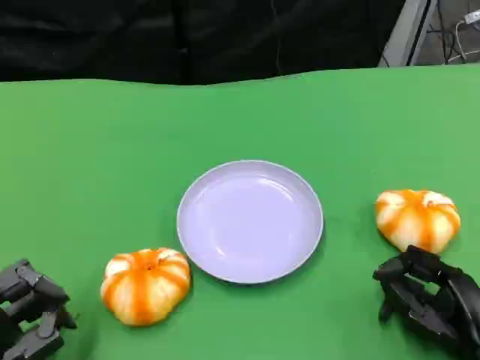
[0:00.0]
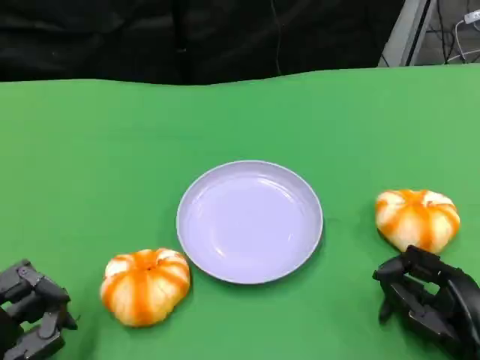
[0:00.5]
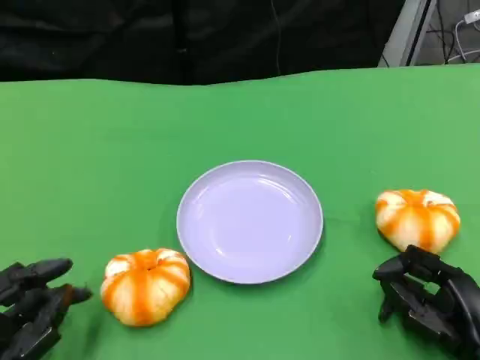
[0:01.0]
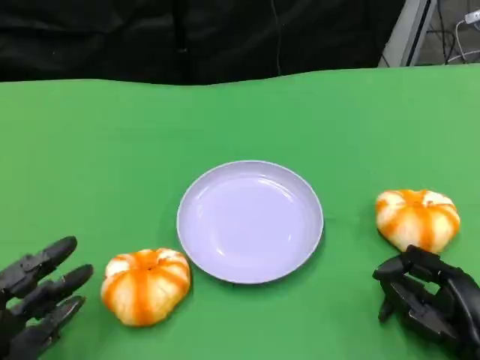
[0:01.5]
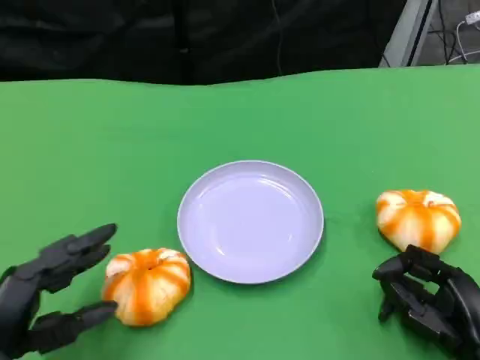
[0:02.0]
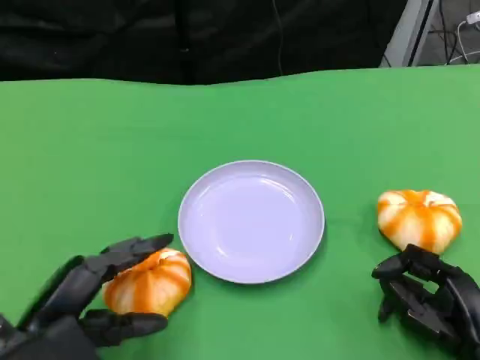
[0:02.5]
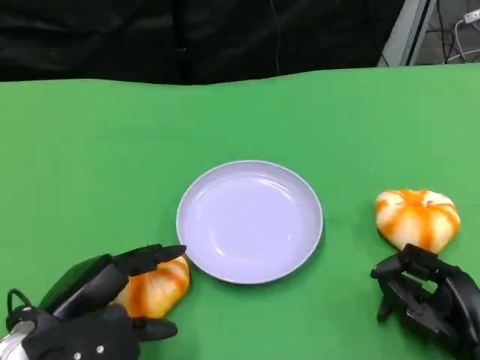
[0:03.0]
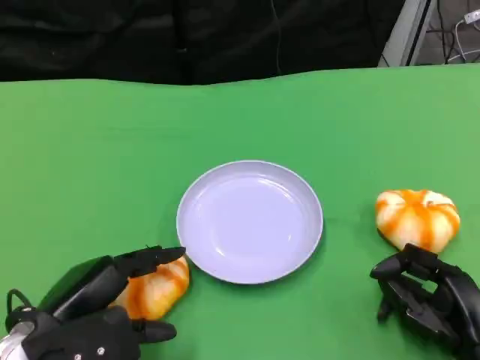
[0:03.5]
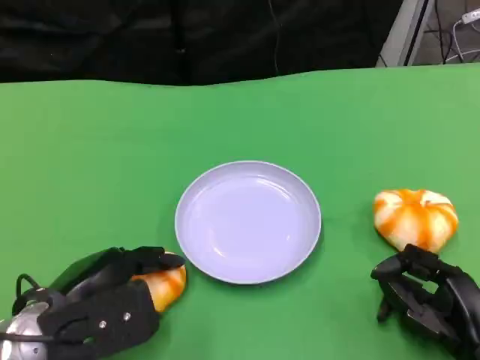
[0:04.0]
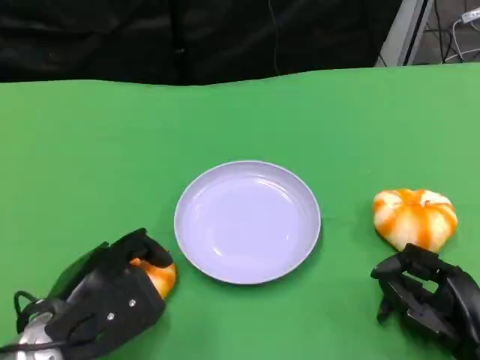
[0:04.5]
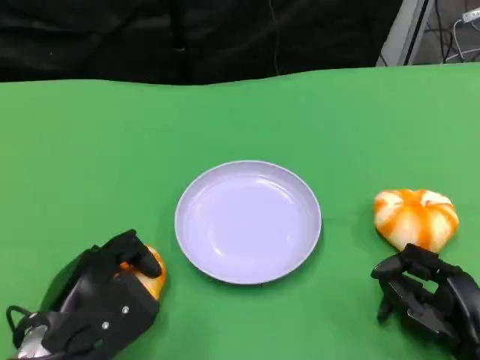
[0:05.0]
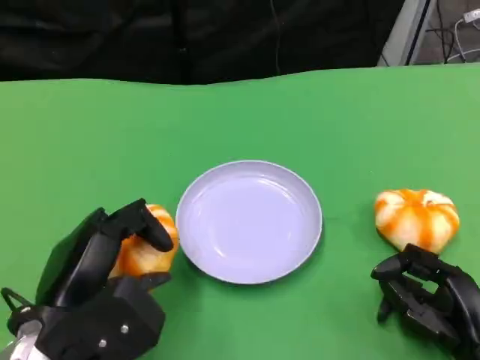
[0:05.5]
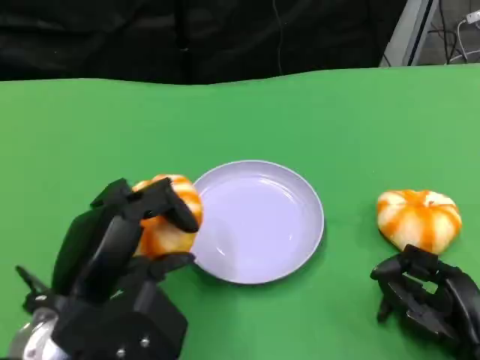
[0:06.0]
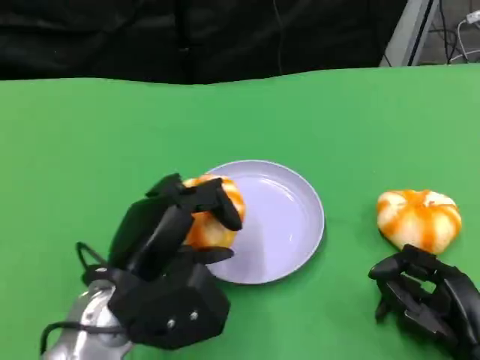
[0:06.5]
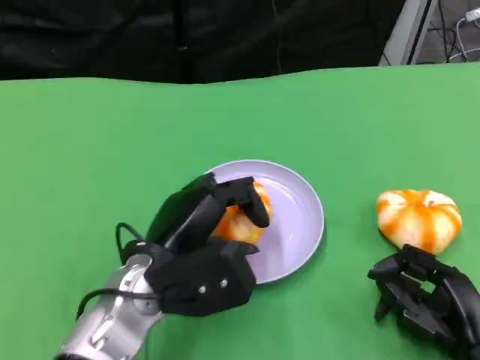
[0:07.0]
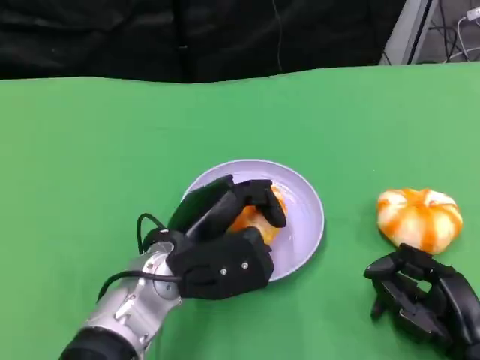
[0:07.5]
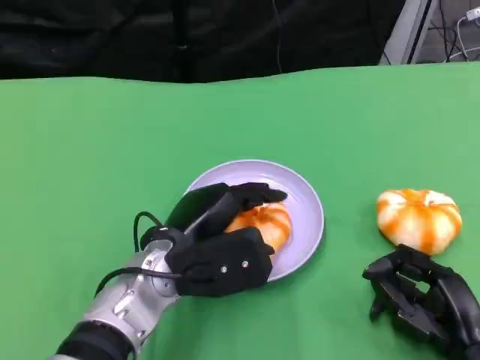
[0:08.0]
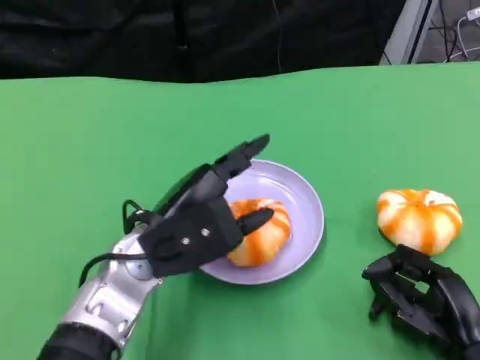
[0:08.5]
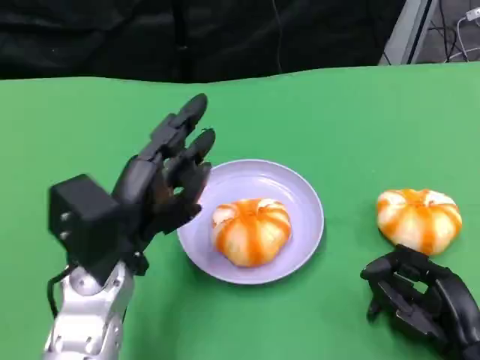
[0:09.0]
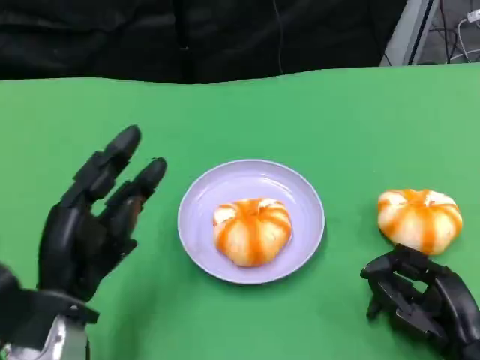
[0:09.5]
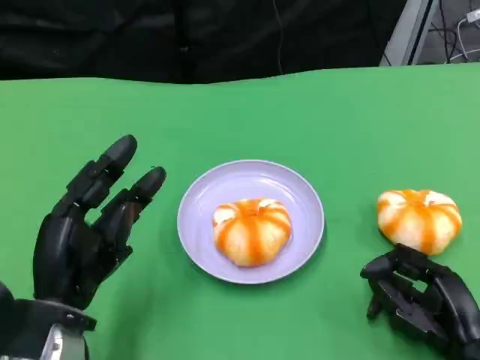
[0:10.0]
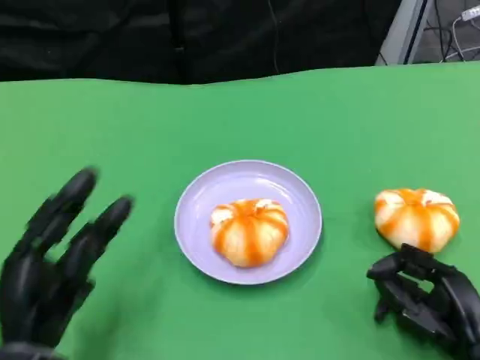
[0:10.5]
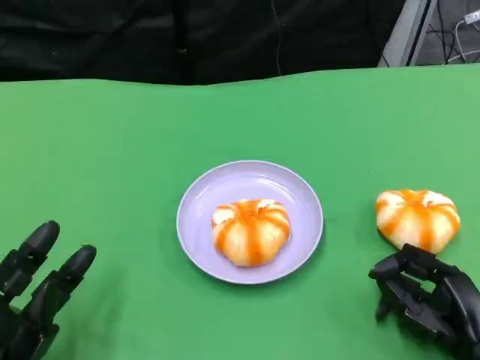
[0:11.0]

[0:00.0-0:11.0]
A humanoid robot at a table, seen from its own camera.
Task of the whole recording: Grasp the bread from the table and place it into the plate.
0:02.0 to 0:03.5: The left hand changes place by approximately 5 cm.
0:05.5 to 0:07.5: The left hand is displaced to the right and forward by about 15 cm.
0:07.5 to 0:09.0: The left hand goes approximately 5 cm to the left.
0:09.0 to 0:11.0: The left hand shifts about 20 cm backward, to the left and downward.

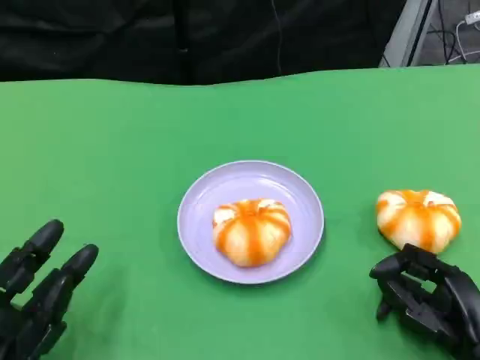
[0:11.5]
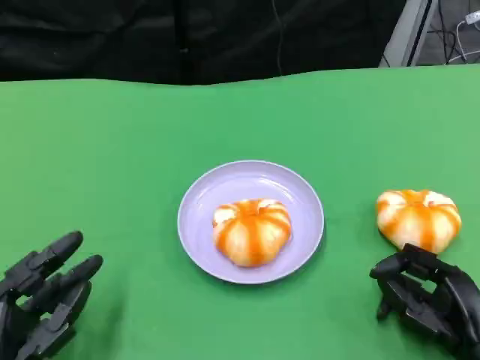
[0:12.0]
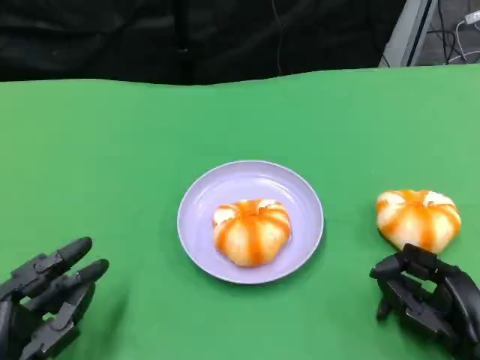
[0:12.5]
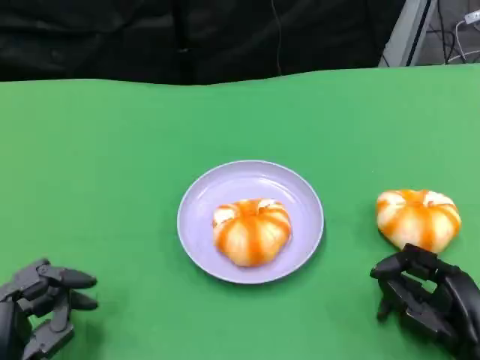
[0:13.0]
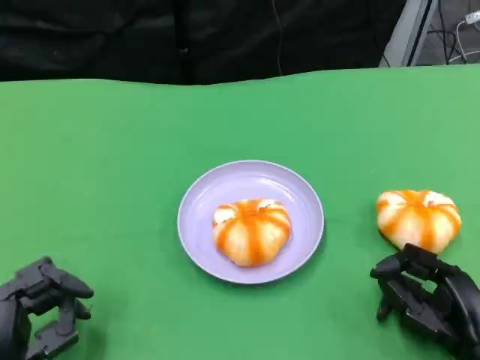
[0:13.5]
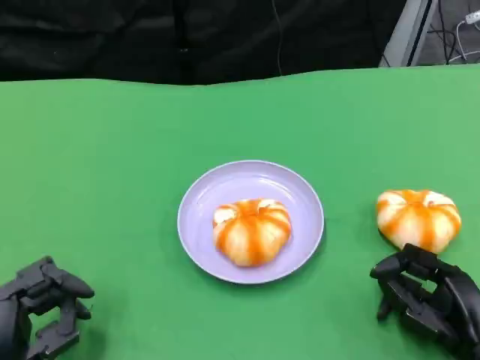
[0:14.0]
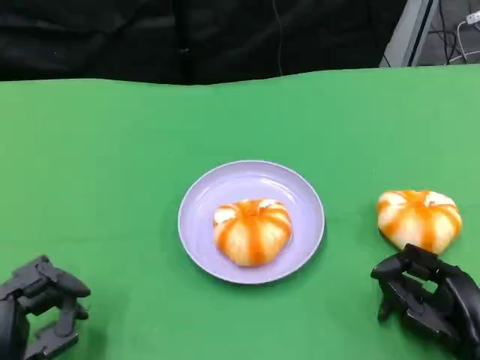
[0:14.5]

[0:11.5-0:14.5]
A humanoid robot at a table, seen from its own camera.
Task of the whole recording: Grasp the bread from the table and place it into the plate.
0:13.0 to 0:14.5: Neither hand changes place.
